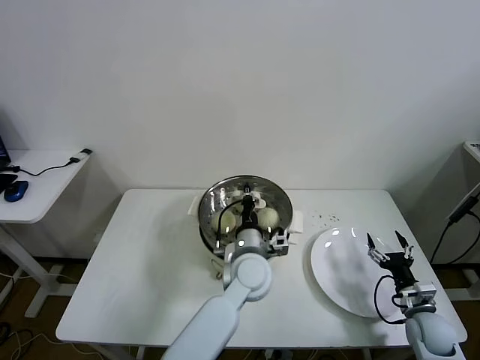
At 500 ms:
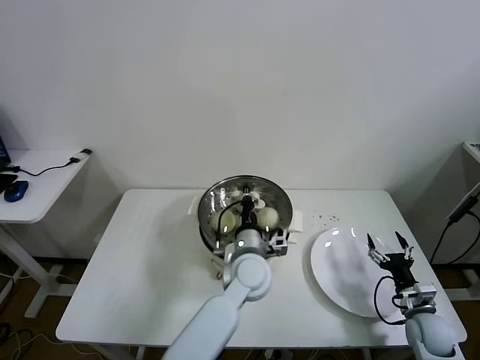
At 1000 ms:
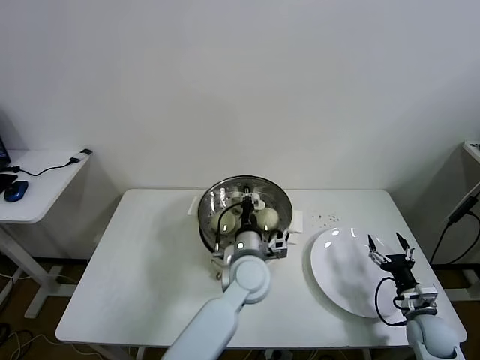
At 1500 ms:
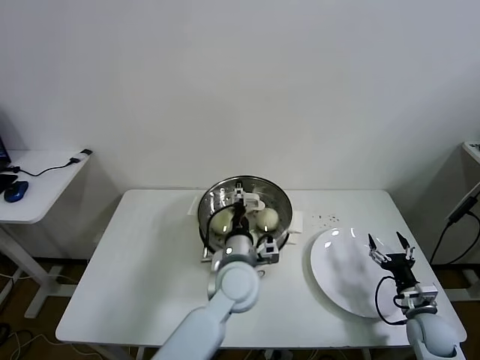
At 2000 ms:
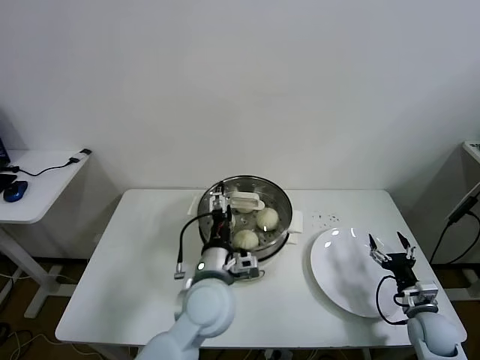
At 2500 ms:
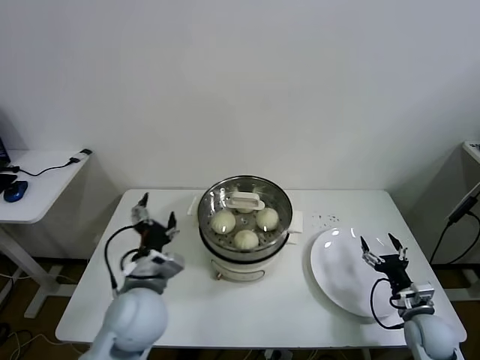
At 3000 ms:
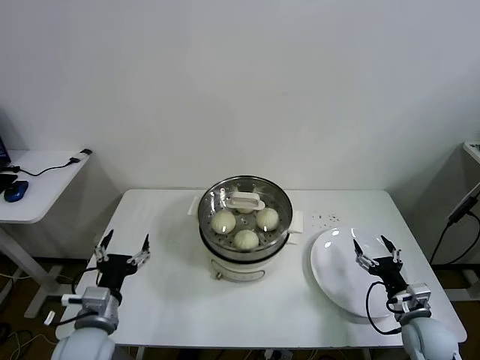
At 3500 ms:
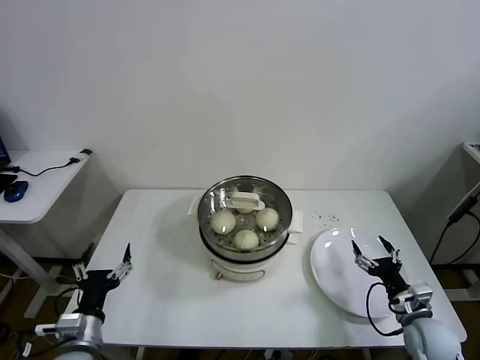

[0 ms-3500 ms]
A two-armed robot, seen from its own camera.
Task of the whole recording: take steamed baozi put them in steamer.
0 ms to 2000 ms: The left gripper travels to the left and backward by roughly 10 cm, and opens.
2000 ms to 3500 ms: The right gripper moves some 5 cm, while the left gripper heads to the left and backward, covering approximately 30 cm.
